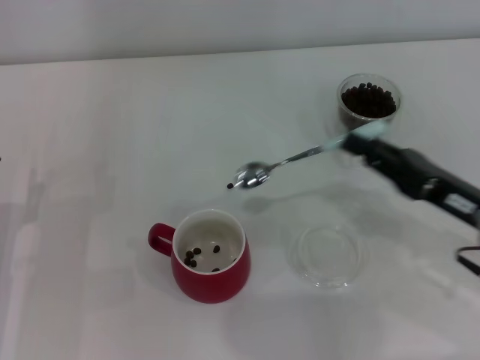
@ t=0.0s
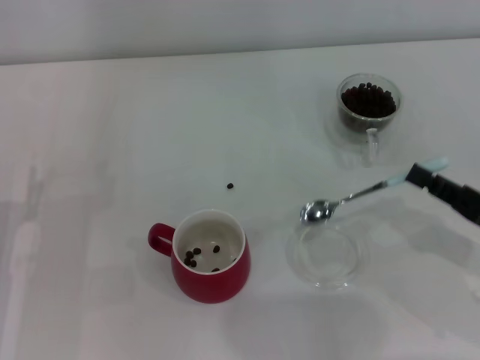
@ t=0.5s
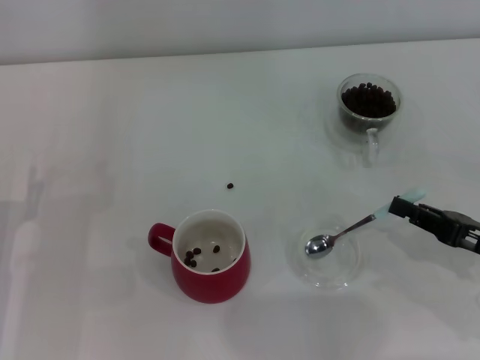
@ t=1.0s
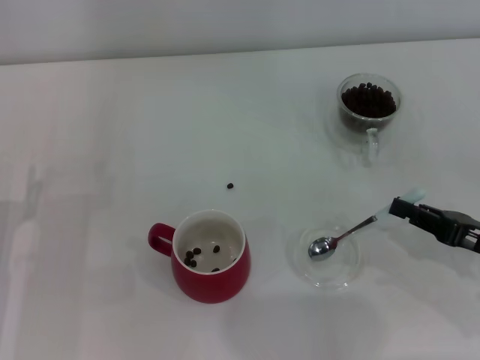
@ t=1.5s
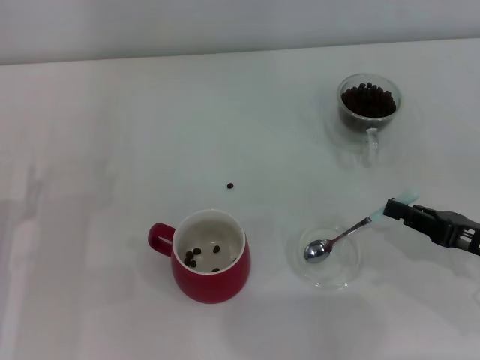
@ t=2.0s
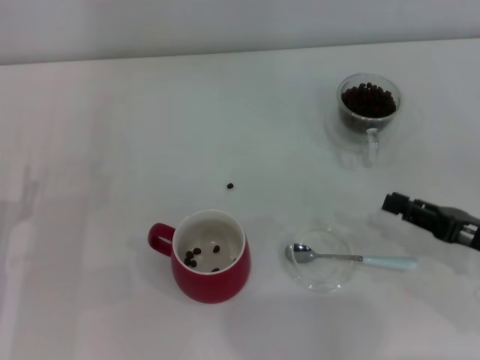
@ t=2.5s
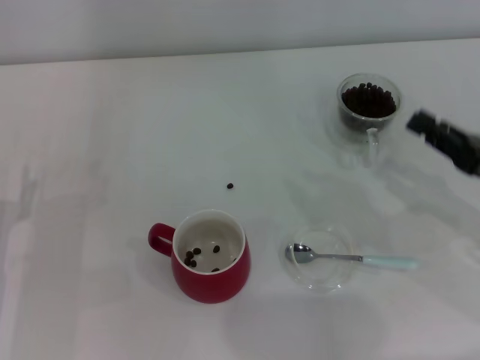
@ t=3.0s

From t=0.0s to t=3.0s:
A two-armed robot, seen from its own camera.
Task of the whole recording: Use a blue spoon to take out the coffee beans from the glass and pour them into the red cup.
Step, from t=0.0s to t=2.0s: Place the spoon back in its original place with the right gripper.
From t=0.0s to t=1.5s: The right gripper shifts roughly 5 cm to the right.
From t=1.5s to t=3.0s: The right gripper ends up some 5 cm from where it was.
